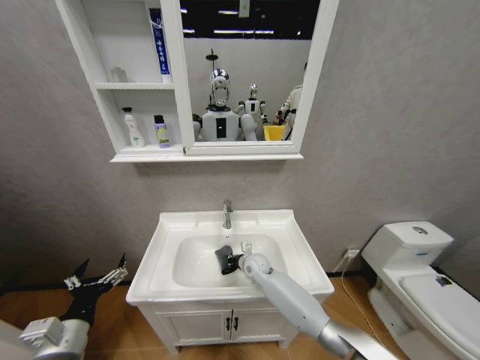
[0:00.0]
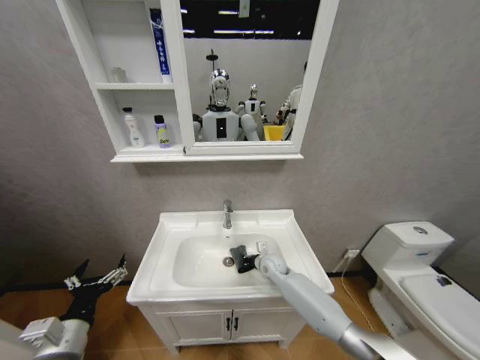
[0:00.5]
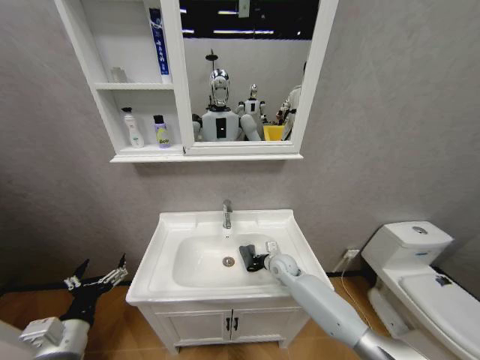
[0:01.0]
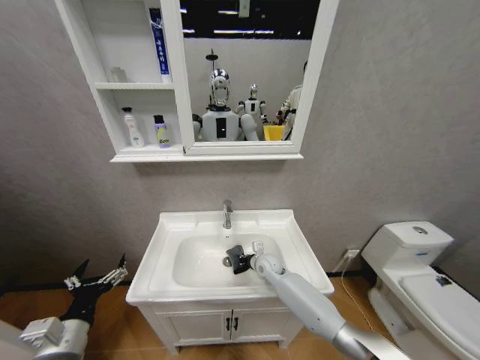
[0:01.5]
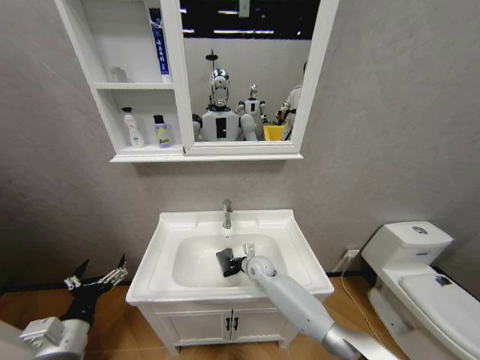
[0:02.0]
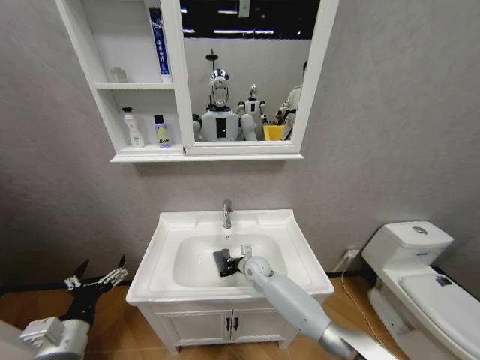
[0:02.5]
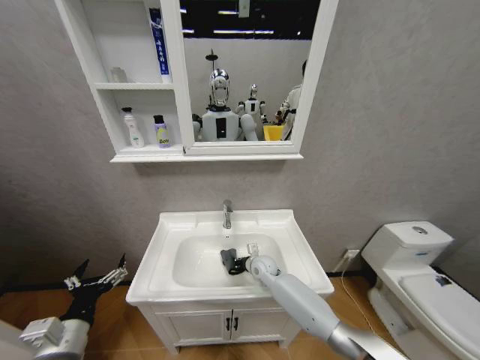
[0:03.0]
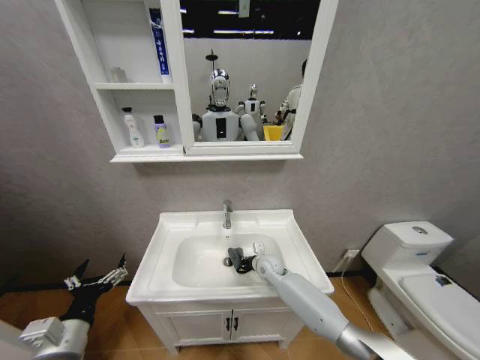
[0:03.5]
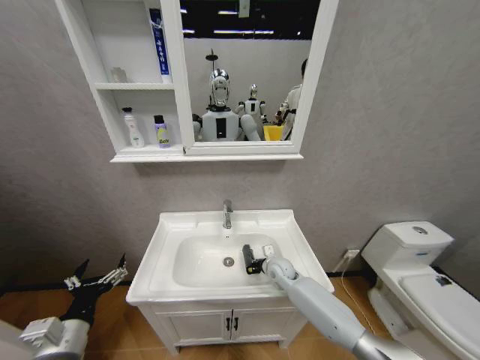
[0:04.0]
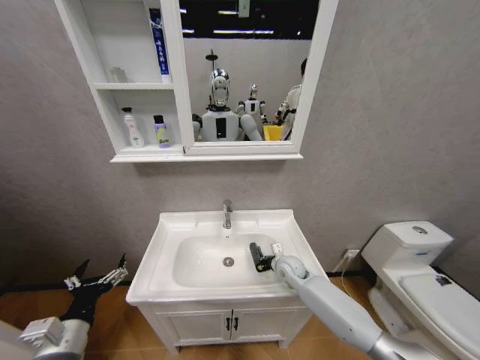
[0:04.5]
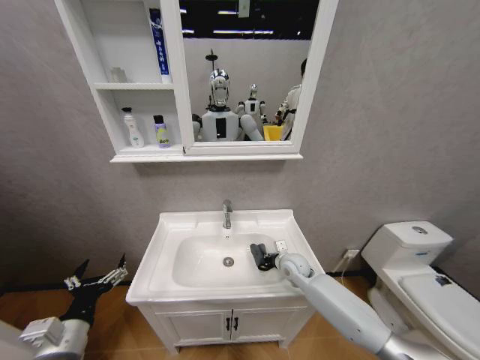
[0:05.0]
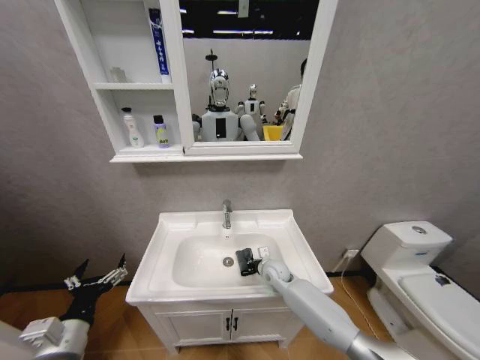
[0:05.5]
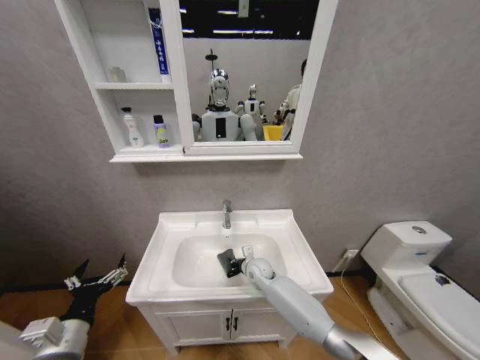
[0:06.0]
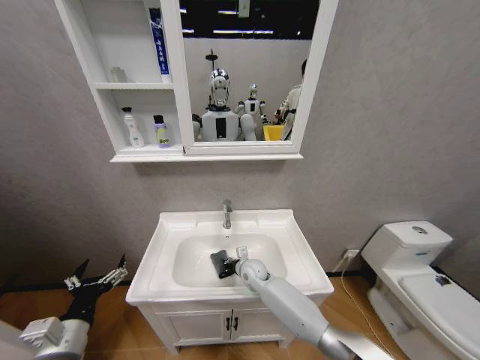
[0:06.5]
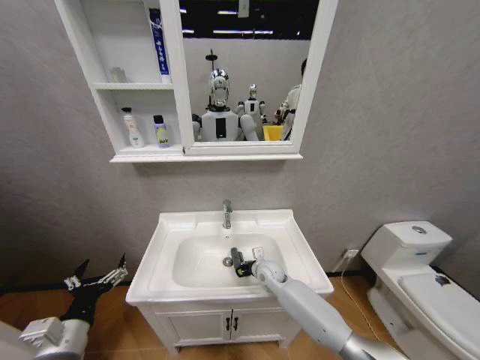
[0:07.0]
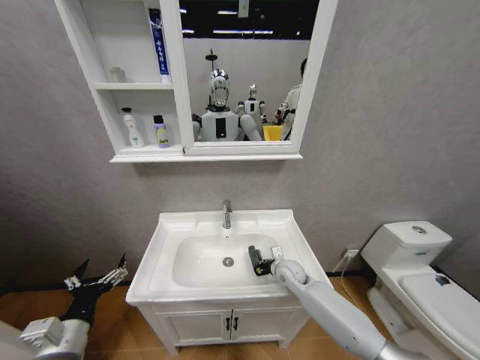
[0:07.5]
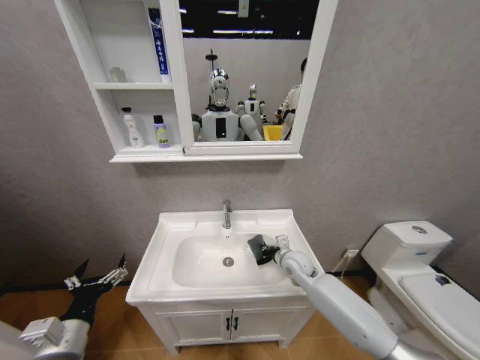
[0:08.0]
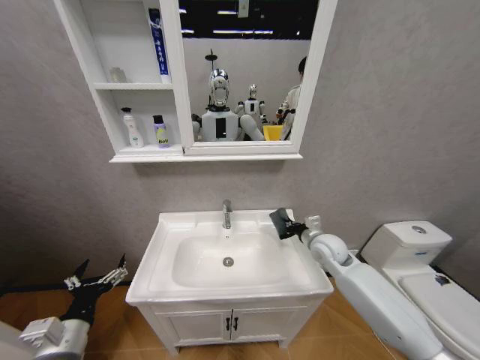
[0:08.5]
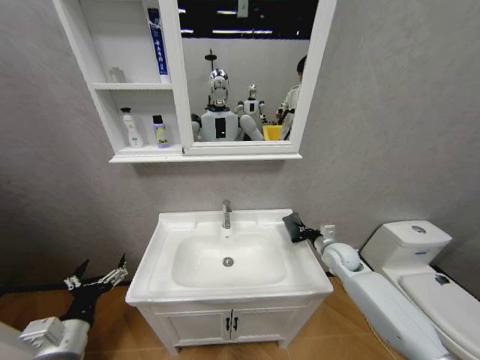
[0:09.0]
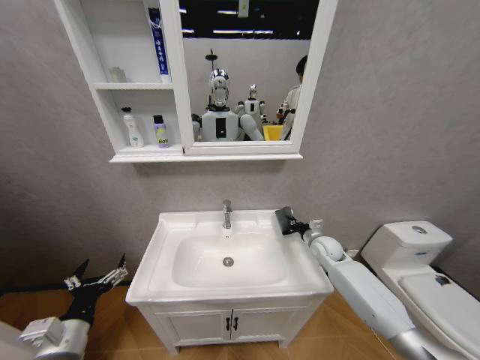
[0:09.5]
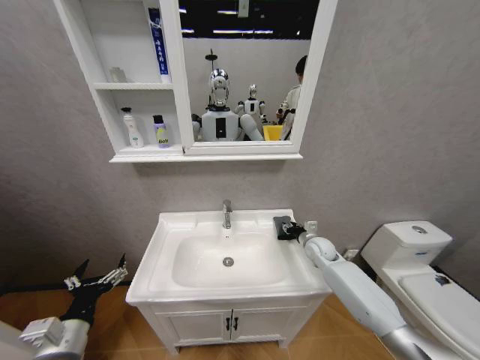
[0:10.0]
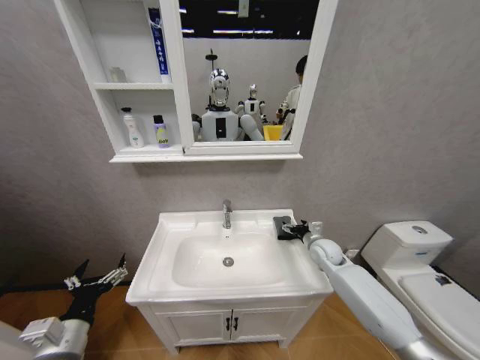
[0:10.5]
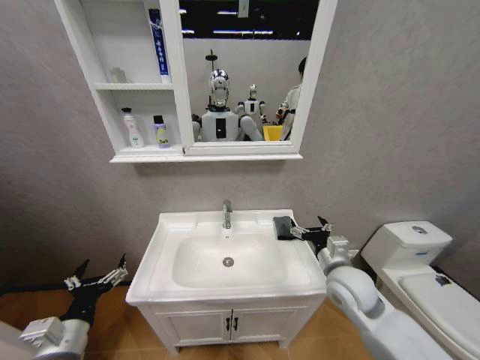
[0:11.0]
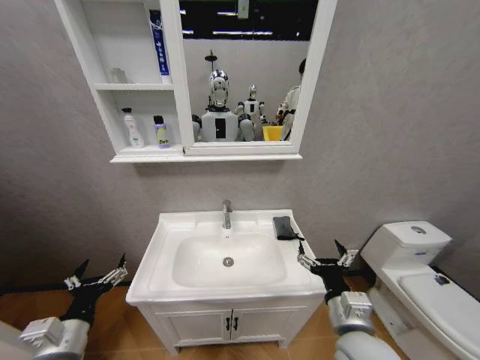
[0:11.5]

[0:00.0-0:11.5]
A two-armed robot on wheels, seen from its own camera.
Task of the whole recording: Move facial cleanser and shampoo from washbasin to cabinet, then wipe washbasin with towel.
0:00.0 to 0:02.0: The right gripper travels to the right and back again, some 10 cm each way.
0:02.0 to 0:04.0: The right gripper is displaced to the right by approximately 5 cm.
0:04.0 to 0:06.0: The right gripper is displaced to the left by about 10 cm.
0:06.0 to 0:07.5: The right gripper goes roughly 10 cm to the right.
0:07.5 to 0:09.5: The right gripper travels to the right, upward and forward by approximately 15 cm.
0:09.5 to 0:11.5: The right gripper shifts some 30 cm backward, and opens up.
